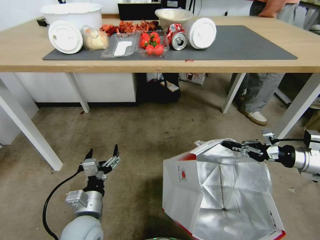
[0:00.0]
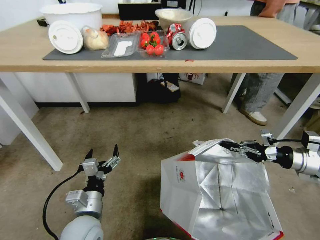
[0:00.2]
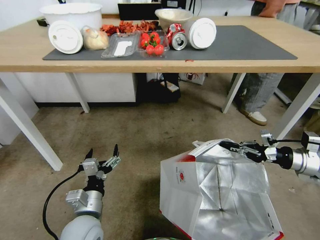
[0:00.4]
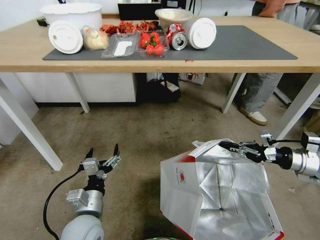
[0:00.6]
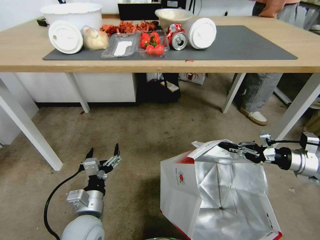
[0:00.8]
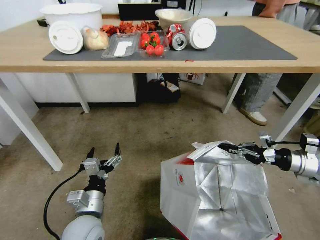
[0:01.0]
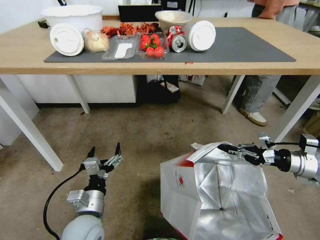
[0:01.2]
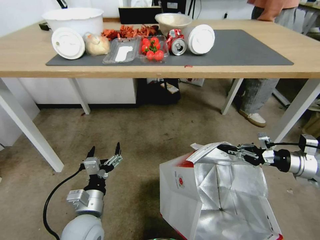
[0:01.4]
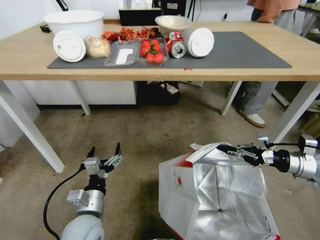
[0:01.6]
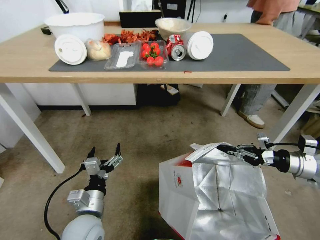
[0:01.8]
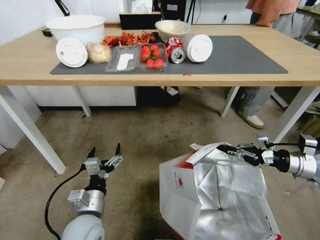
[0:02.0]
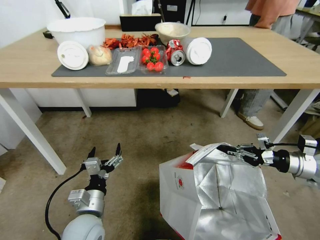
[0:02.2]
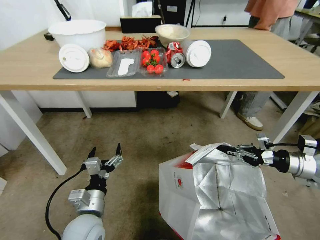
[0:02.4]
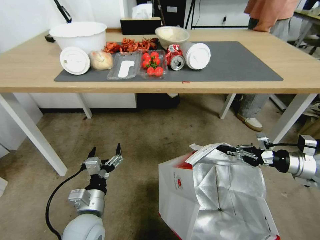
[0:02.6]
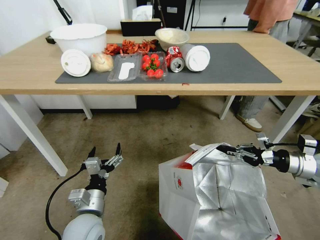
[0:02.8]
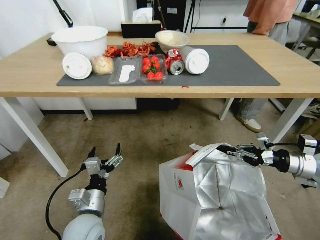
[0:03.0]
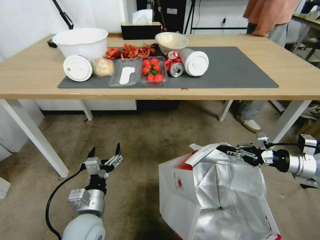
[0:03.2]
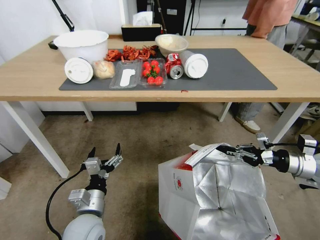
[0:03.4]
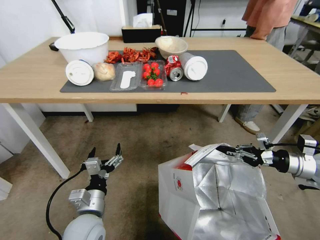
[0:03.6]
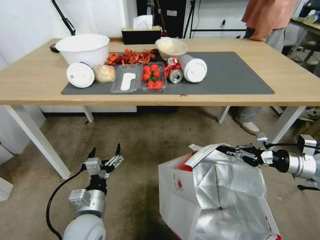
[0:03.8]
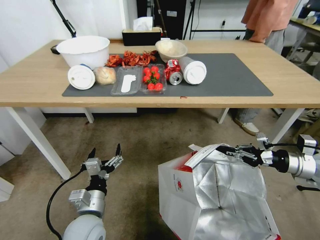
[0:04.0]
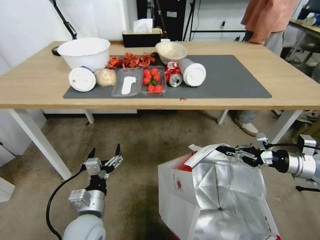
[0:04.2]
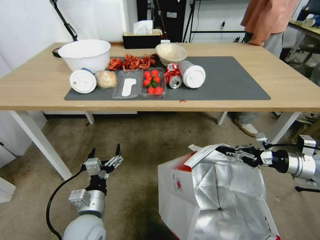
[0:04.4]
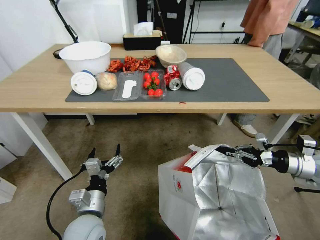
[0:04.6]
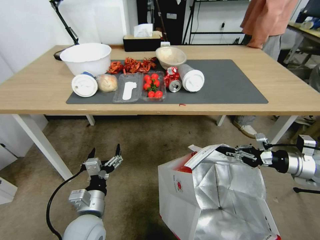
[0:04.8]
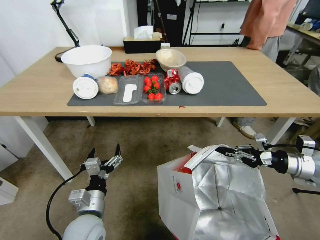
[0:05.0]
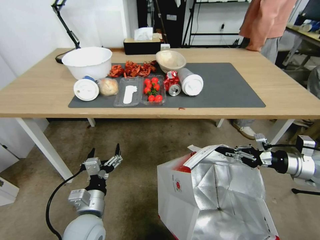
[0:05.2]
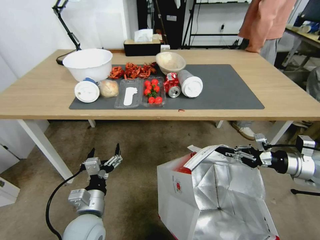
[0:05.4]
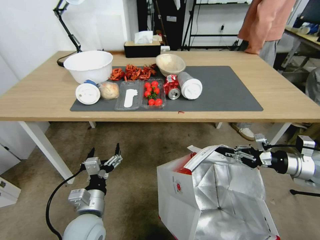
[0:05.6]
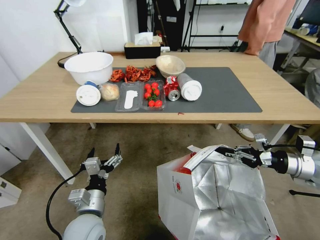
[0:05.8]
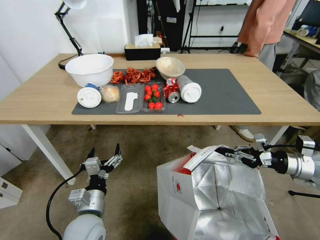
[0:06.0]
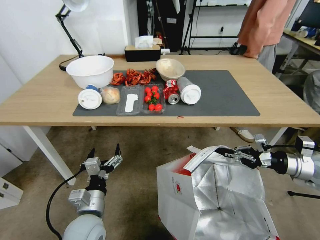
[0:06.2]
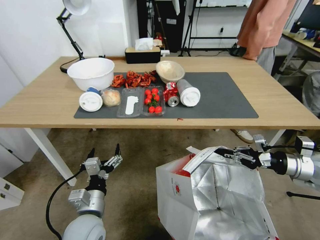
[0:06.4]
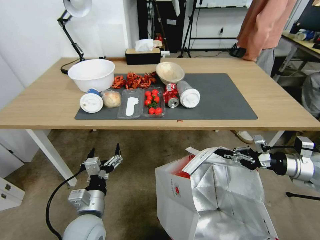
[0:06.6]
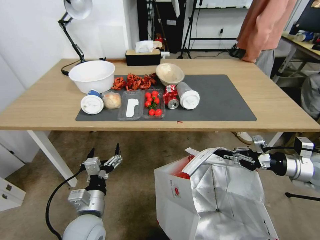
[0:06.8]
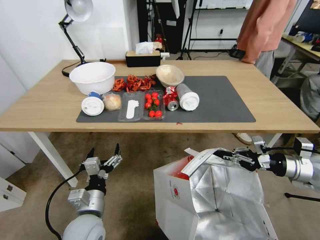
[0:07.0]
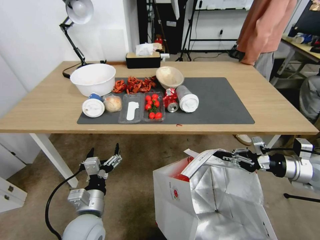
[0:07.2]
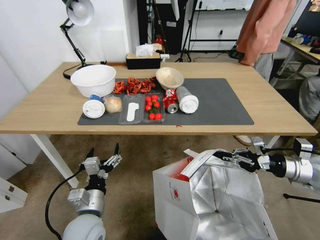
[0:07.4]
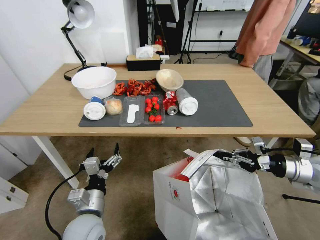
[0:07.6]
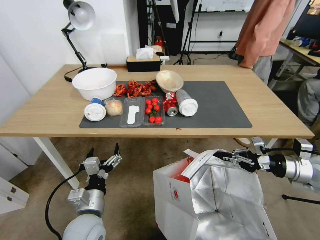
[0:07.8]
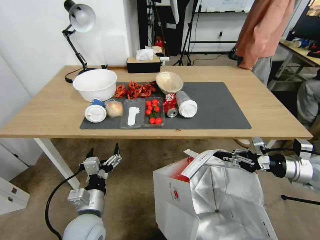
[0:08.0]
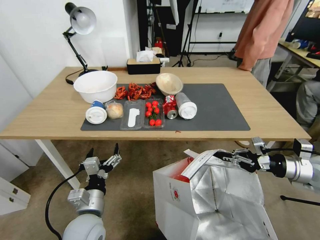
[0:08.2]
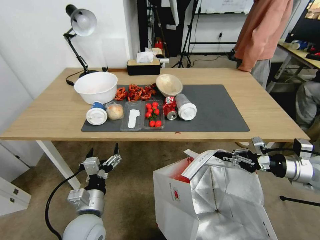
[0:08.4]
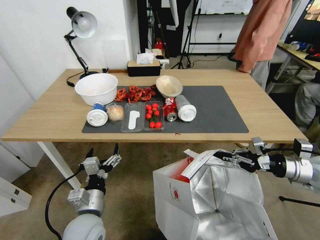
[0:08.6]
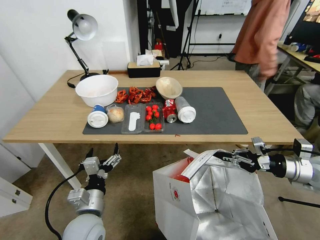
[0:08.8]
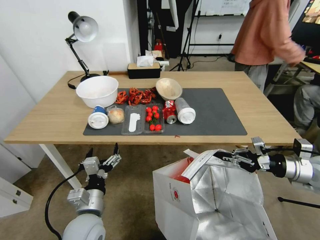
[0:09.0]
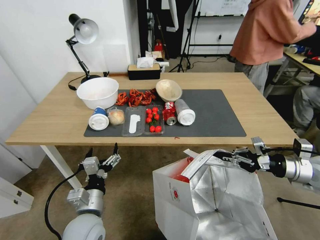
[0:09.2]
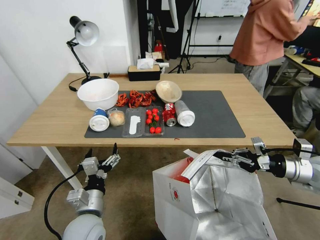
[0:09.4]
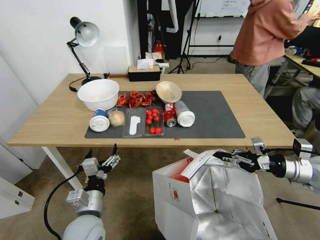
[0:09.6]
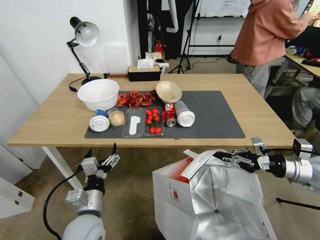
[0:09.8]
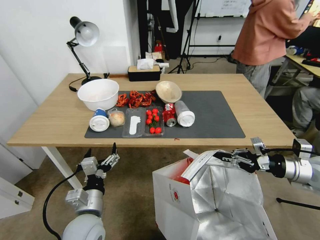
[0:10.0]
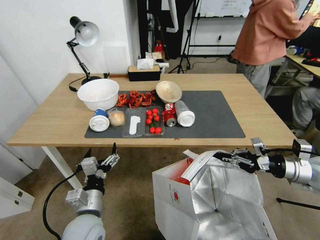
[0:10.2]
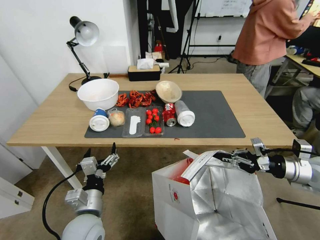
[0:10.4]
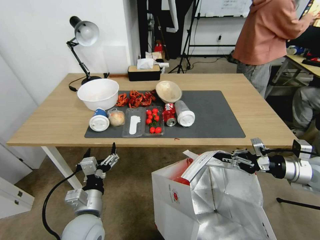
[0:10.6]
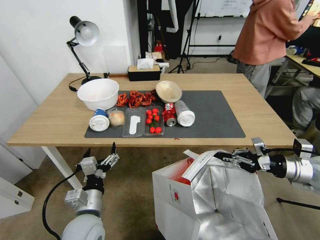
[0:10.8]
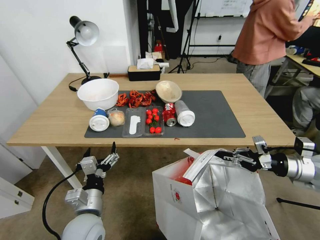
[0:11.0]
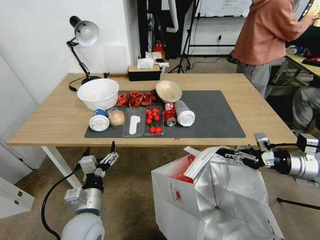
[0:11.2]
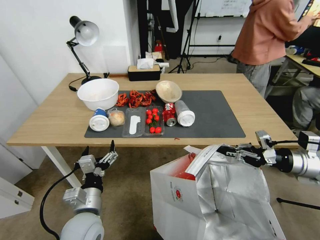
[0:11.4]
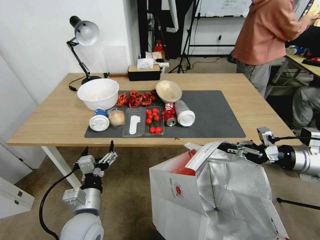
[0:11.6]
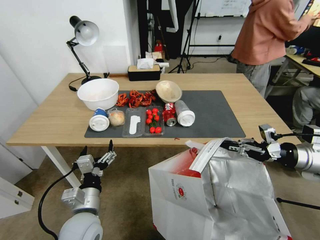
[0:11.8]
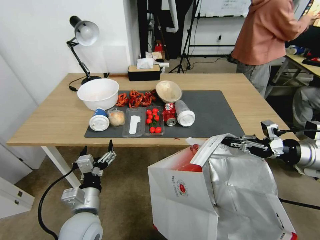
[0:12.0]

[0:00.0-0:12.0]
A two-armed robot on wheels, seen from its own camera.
Task of the whole recording: Pick up the food delivery bag from the floor and place it on the table.
0:09.0 to 0:10.4: The two grippers keep their place.
0:10.4 to 0:12.0: The right gripper shifts approximately 5 cm upward.

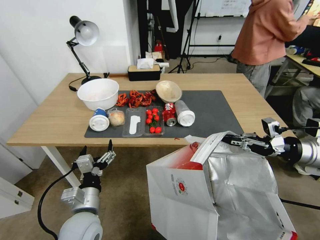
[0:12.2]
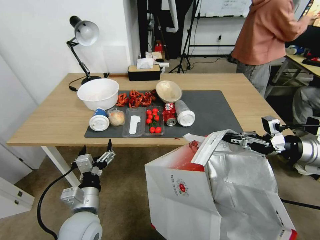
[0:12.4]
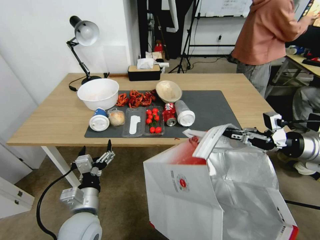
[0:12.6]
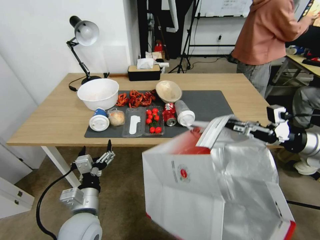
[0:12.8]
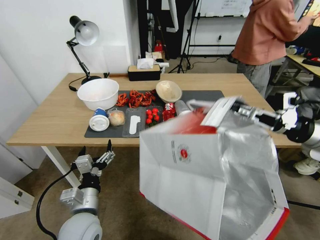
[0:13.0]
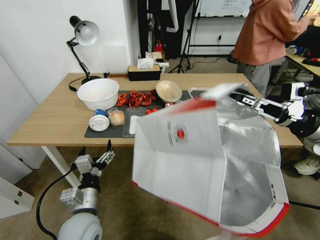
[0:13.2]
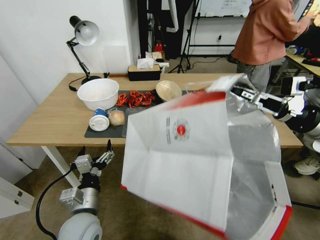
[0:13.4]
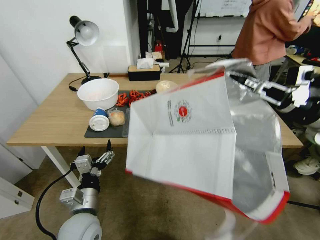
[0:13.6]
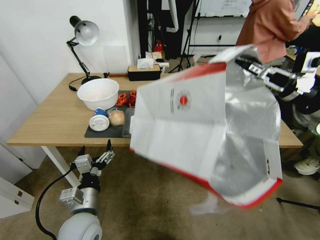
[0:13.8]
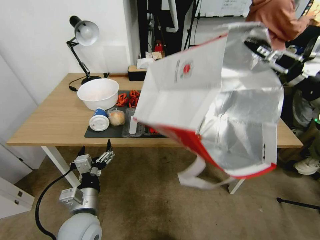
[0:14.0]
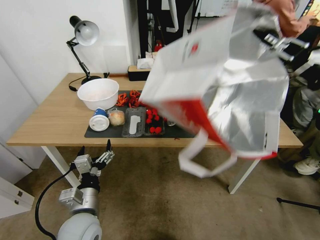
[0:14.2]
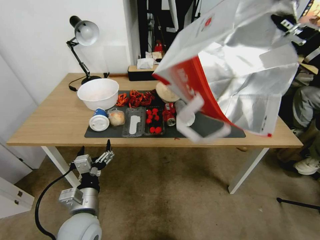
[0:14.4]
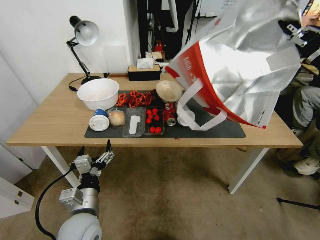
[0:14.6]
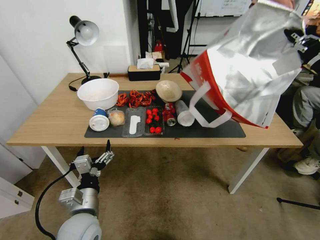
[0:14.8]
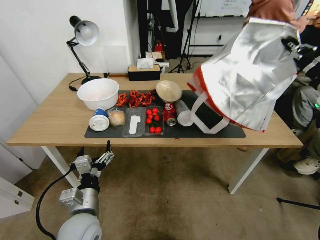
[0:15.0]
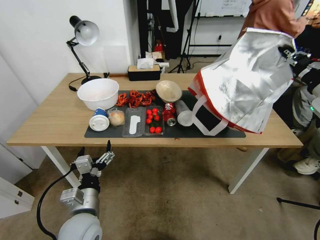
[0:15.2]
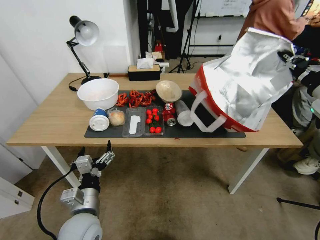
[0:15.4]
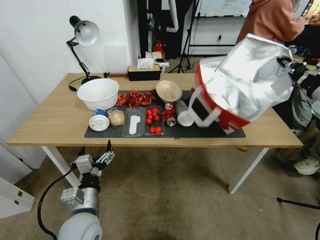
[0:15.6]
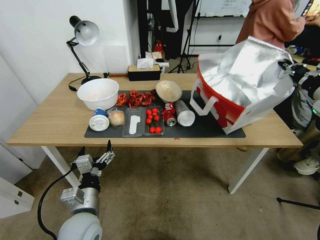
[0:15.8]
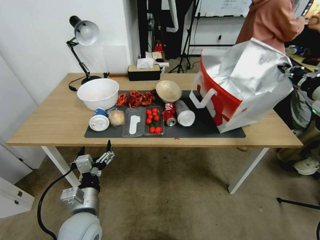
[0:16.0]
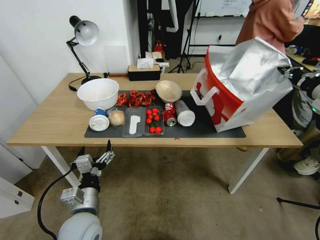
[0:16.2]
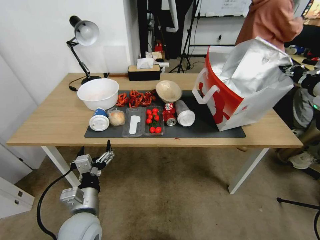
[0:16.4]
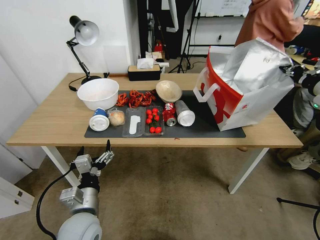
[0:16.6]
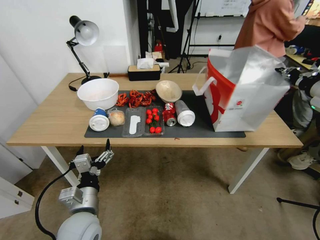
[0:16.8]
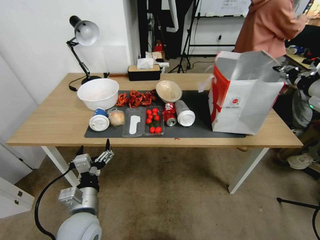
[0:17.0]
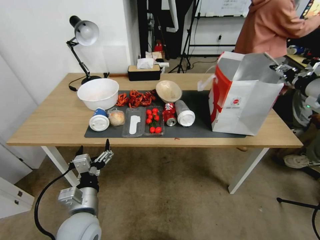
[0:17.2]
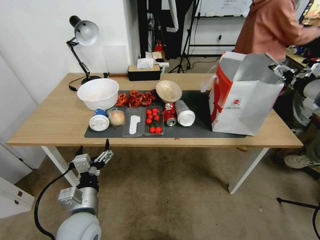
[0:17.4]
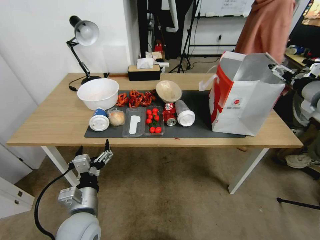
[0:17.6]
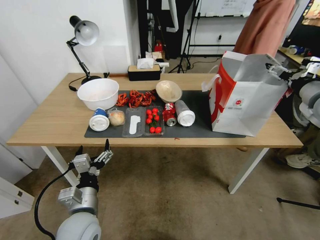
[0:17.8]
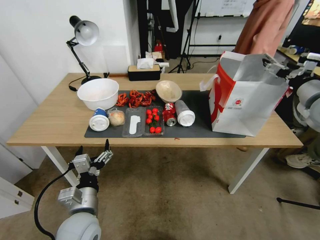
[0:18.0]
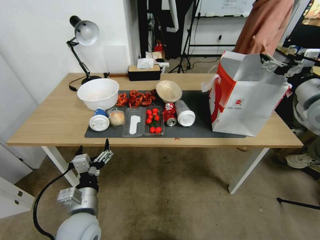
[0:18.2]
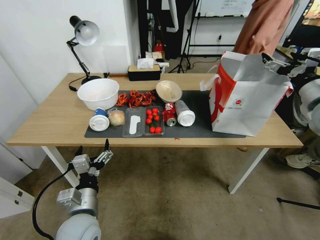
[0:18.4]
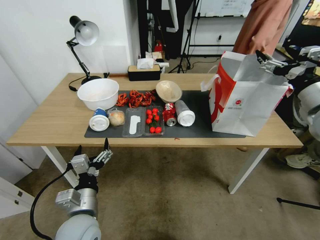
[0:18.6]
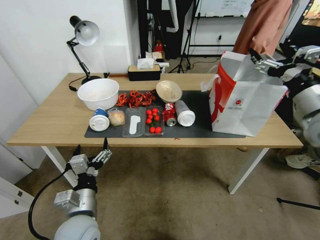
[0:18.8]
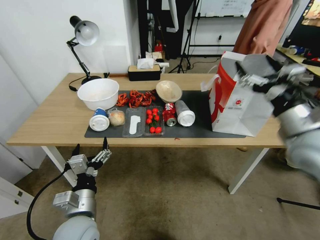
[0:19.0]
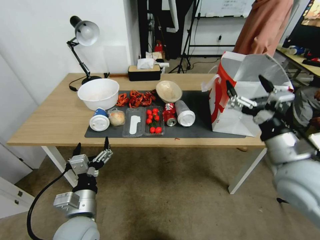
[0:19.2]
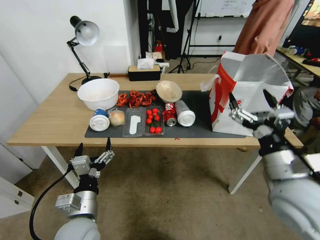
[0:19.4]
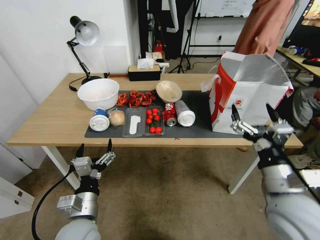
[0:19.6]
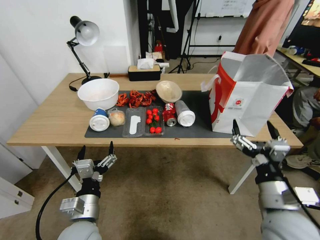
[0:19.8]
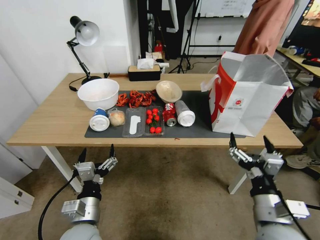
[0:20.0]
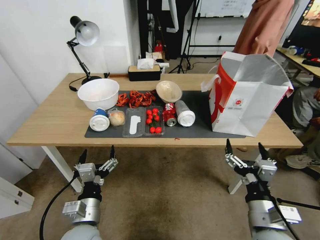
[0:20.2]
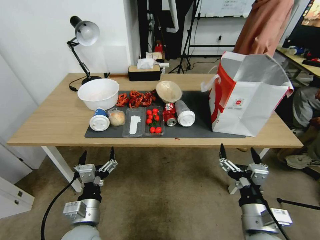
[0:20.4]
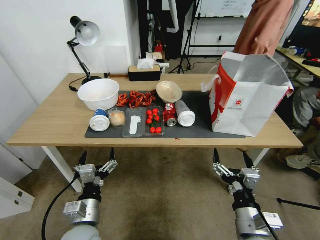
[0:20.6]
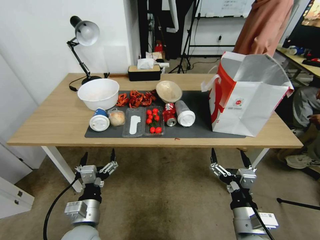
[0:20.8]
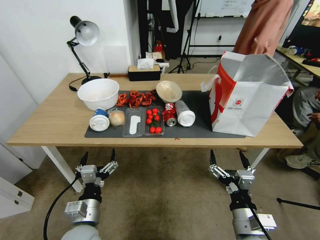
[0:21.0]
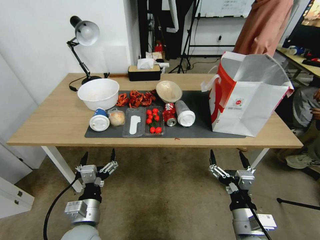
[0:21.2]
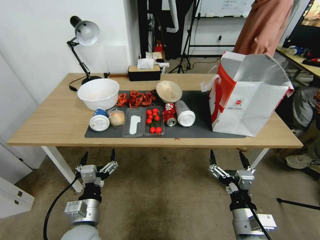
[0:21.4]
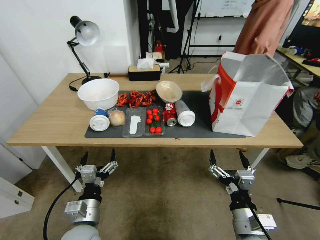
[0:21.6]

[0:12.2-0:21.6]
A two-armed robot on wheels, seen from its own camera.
Task of the whole recording: Pick up the food delivery bag from the floor and place it on the table.
0:12.2 to 0:13.8: The right gripper heads upward, covering some 10 cm.
0:13.8 to 0:15.4: The right gripper moves some 5 cm.
0:15.4 to 0:17.0: The right gripper ends up about 5 cm from where it was, and opens.
0:17.0 to 0:18.4: The right gripper travels to the left by about 5 cm, and opens its fingers.
0:18.4 to 0:20.0: The right gripper moves backward, downward and to the left, approximately 35 cm.
0:20.0 to 0:21.6: The right gripper heads downward, covering roughly 5 cm.

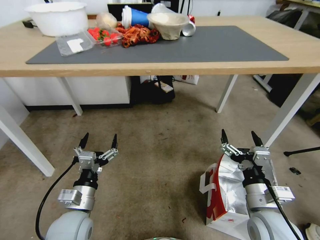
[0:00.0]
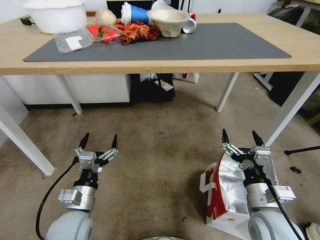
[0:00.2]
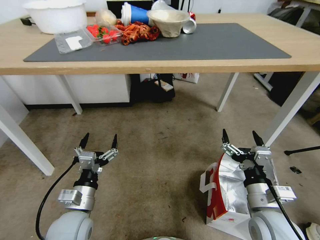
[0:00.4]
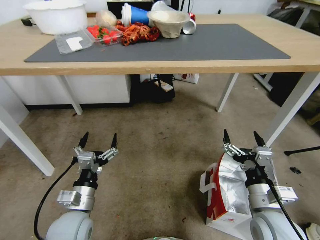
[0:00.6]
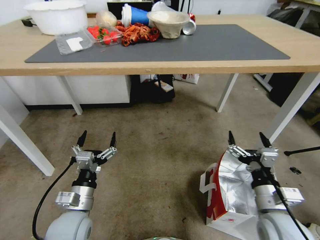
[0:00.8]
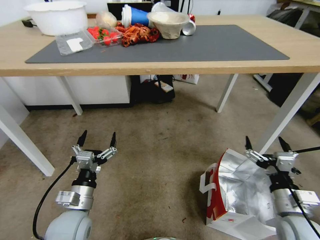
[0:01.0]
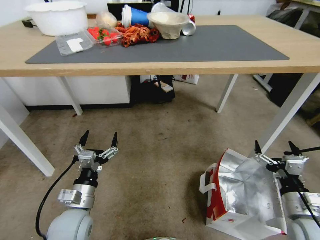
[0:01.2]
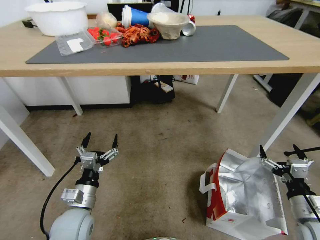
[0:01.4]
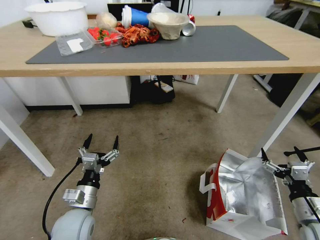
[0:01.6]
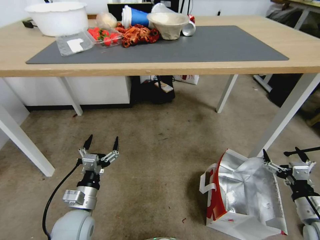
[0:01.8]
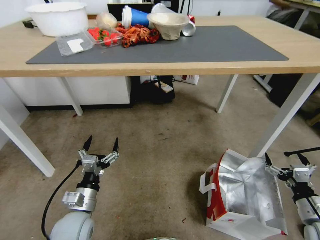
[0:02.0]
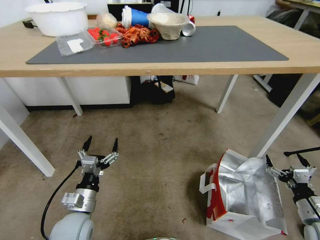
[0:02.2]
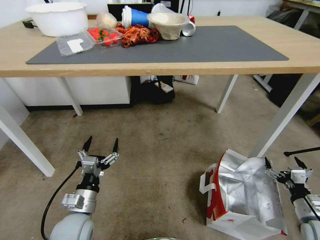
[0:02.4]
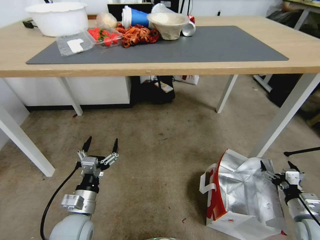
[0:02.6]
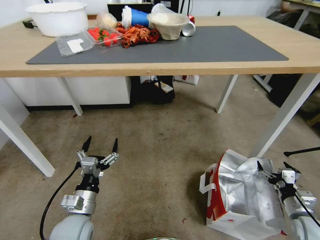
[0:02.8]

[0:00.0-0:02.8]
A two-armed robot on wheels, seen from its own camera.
Task of the whole recording: Pick up the food delivery bag from the floor and place it on the table.
0:00.0 to 0:01.4: The right gripper is displaced to the right by about 15 cm.
0:01.4 to 0:02.8: The right gripper goes approximately 10 cm downward and to the right.
